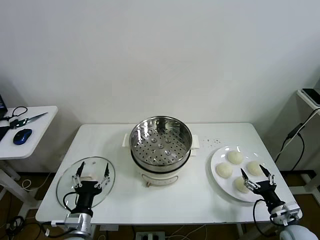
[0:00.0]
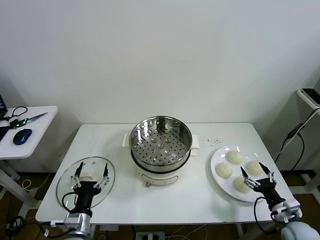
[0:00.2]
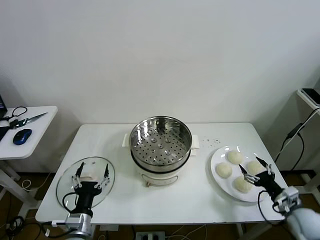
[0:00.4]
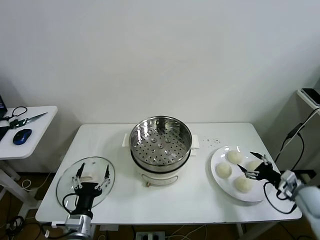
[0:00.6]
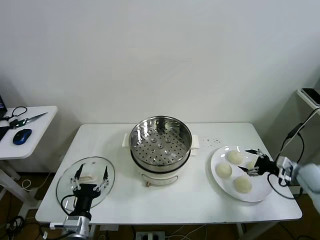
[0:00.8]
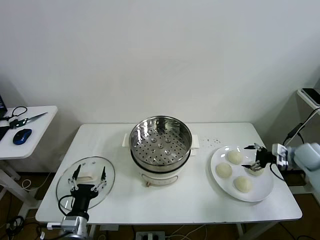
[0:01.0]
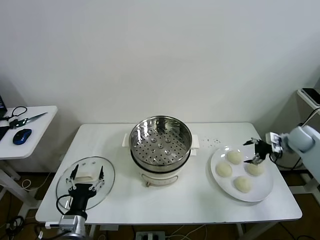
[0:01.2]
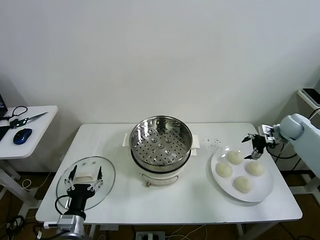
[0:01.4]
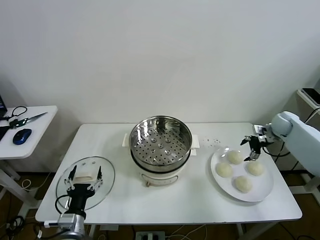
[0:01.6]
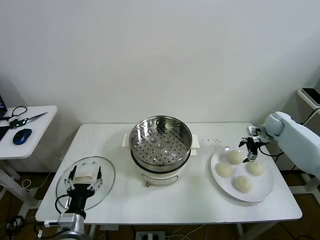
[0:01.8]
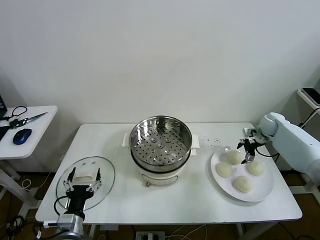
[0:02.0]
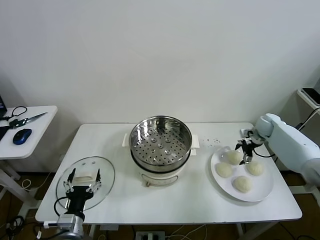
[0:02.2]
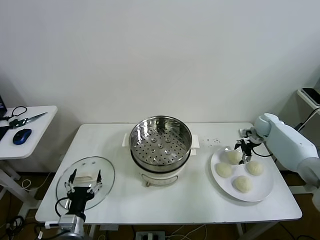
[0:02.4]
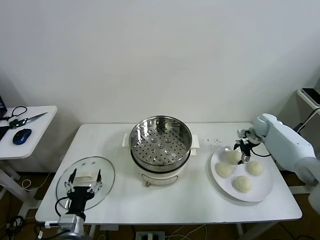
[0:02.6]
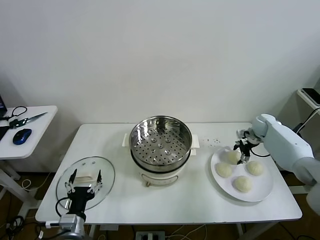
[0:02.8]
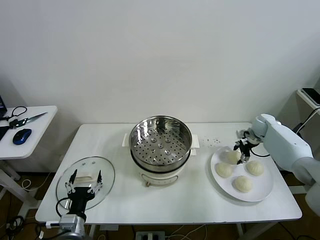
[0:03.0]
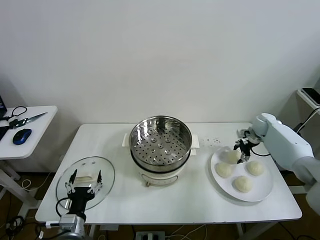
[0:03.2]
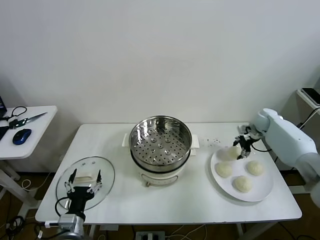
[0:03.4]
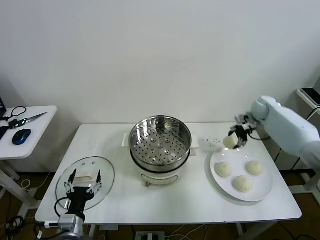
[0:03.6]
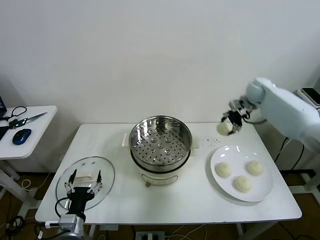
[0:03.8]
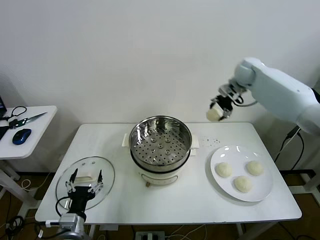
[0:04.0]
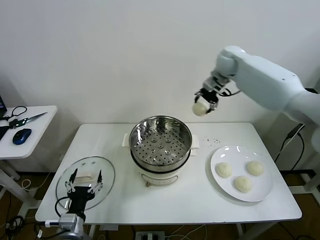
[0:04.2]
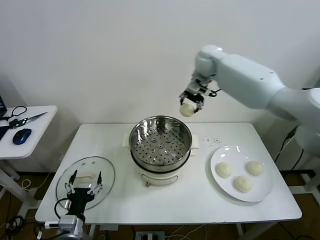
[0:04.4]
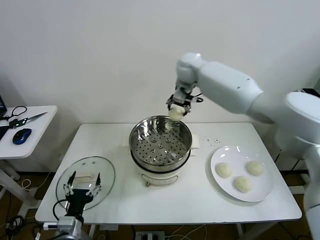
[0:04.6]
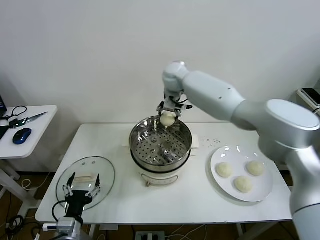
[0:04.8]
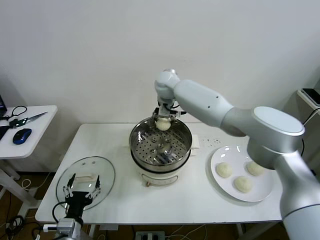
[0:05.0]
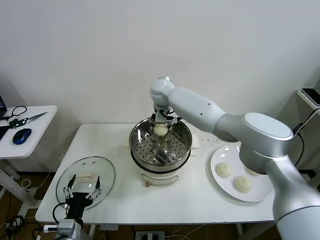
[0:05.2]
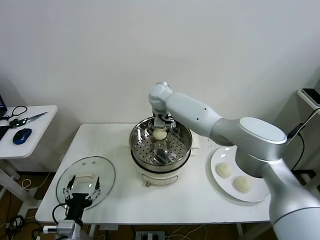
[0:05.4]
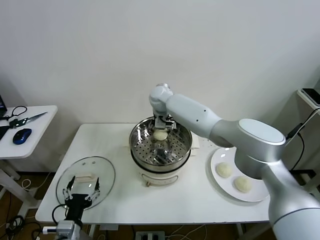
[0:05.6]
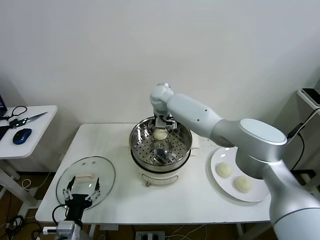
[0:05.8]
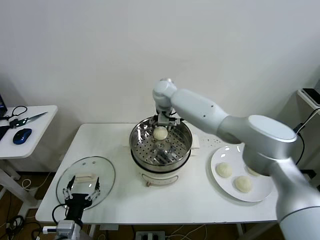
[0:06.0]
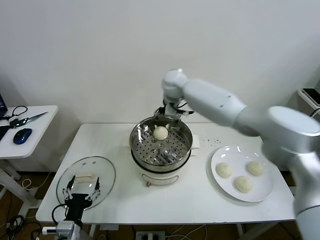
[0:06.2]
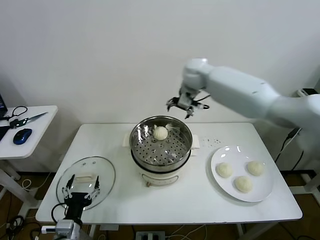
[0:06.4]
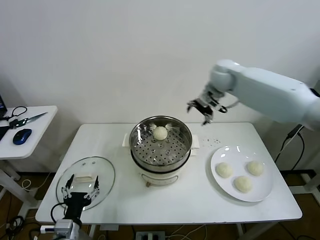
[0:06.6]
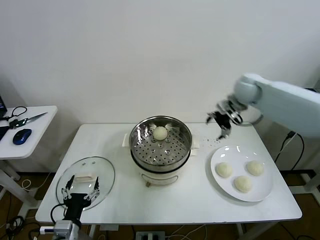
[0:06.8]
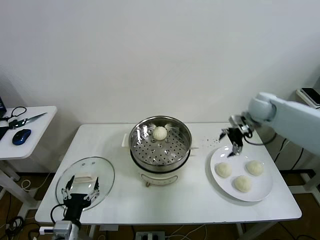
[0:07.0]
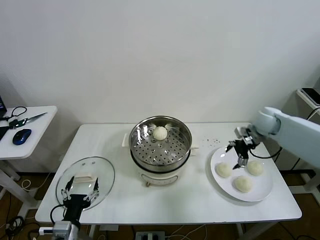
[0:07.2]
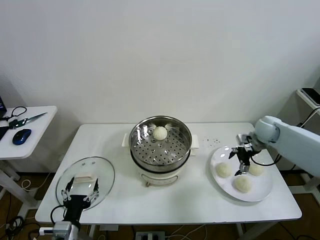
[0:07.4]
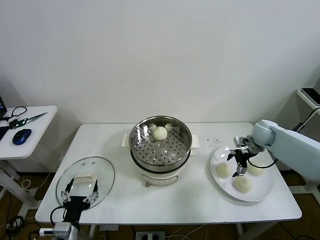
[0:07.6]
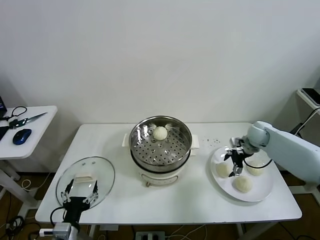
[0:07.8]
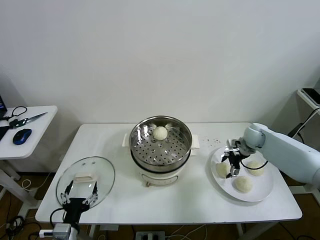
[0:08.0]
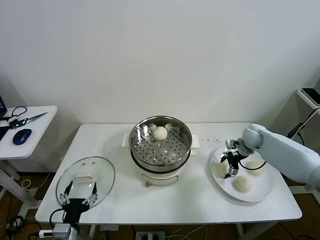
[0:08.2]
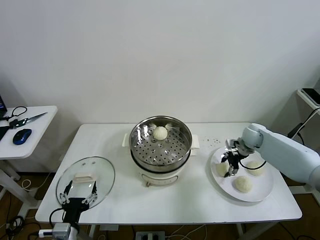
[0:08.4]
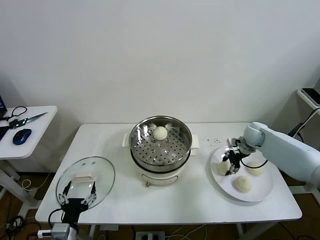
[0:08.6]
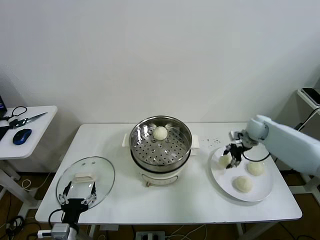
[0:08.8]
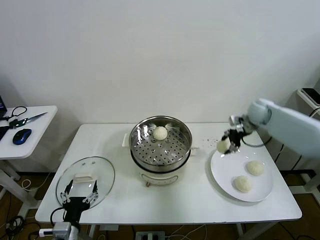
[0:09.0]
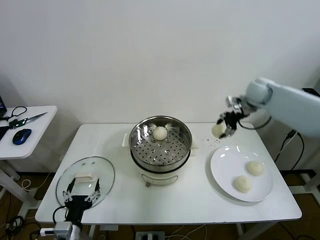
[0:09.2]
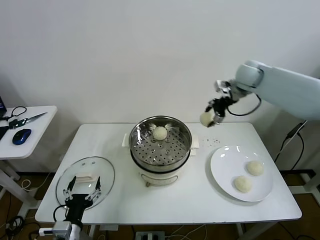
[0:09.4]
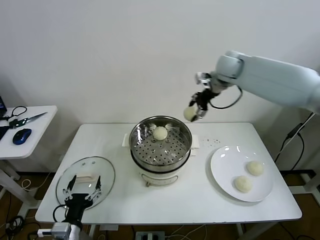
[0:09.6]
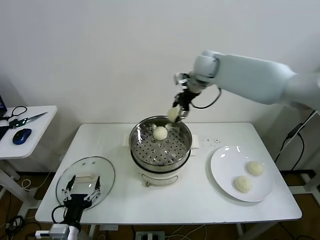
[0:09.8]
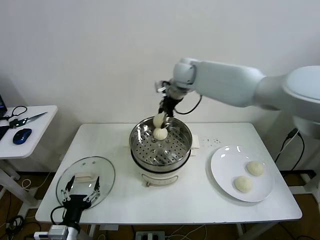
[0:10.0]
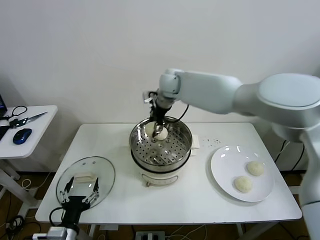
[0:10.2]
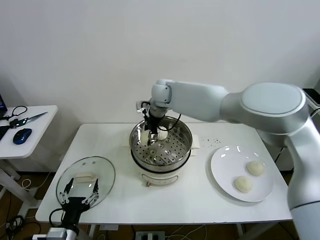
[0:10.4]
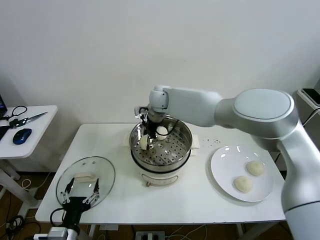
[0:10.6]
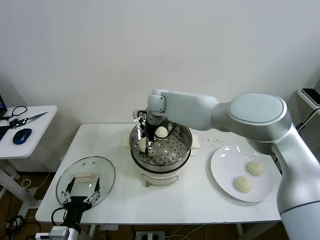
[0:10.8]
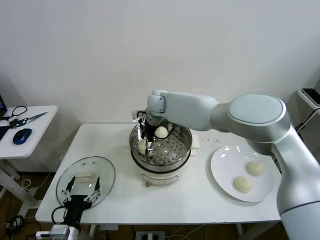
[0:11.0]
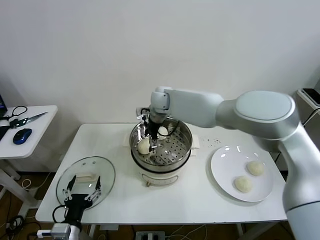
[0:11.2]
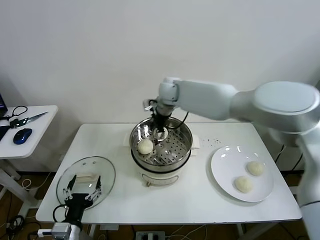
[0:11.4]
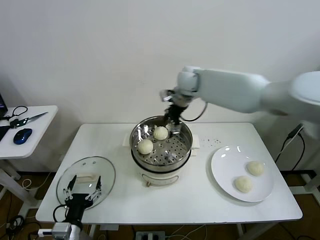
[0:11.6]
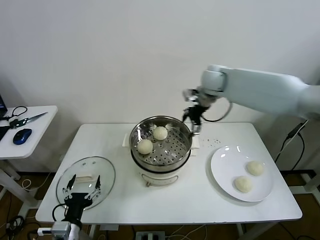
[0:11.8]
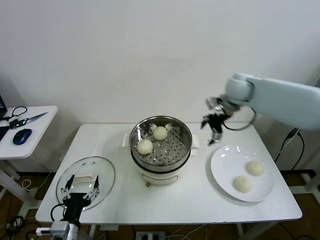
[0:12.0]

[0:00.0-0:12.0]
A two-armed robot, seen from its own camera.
Task of the whole recording: take steamed baozi put them in steamer then cover it.
Step, 0.0 to 2.8 s: Grasp the baozi in the plate with right gripper.
Step, 3.0 to 5.6 s: Place the baozi on the steamer with right gripper.
Step, 5.8 to 8.2 s: Grasp the baozi in the plate with right gripper.
Step, 8.6 to 11.0 s: Place the baozi on the steamer with right gripper.
1.6 to 3.0 s: The right gripper shifts by approximately 5 cm, and closes its fingers.
3.0 to 4.4 s: The right gripper moves to the left and upward, some 40 cm.
4.4 to 6.0 s: The right gripper heads to the left and downward, covering approximately 15 cm, and opens.
6.0 to 7.6 s: The right gripper heads to the right, covering roughly 40 cm.
7.6 to 9.0 s: The right gripper is displaced upward by about 10 cm, and closes.
9.0 to 10.4 s: The right gripper is displaced to the left by some 35 cm.
10.4 to 12.0 s: The right gripper travels to the right by roughly 25 cm, and opens its fingers.

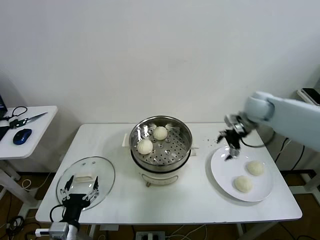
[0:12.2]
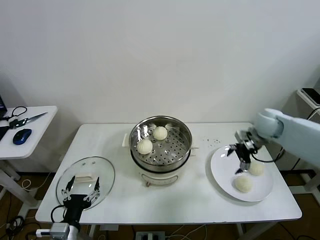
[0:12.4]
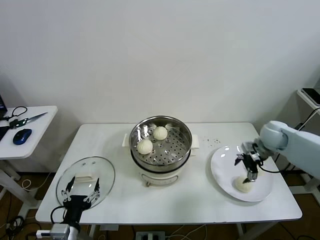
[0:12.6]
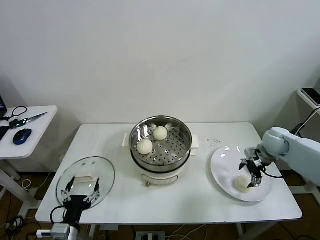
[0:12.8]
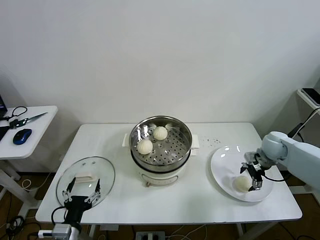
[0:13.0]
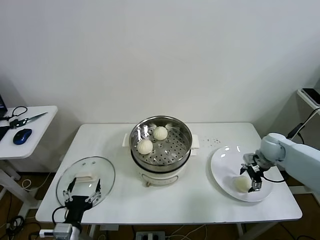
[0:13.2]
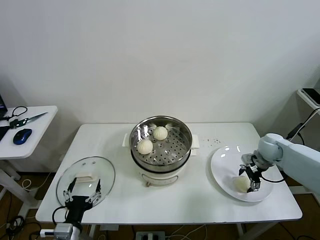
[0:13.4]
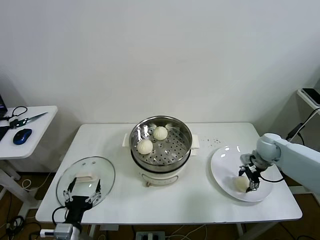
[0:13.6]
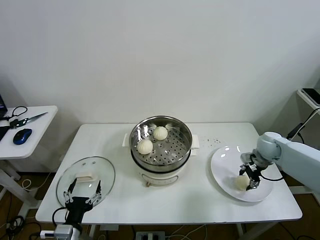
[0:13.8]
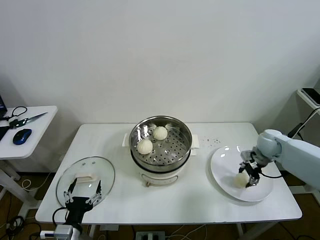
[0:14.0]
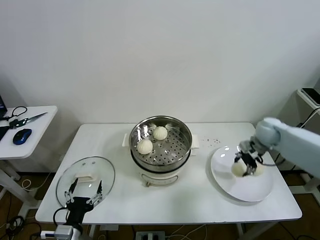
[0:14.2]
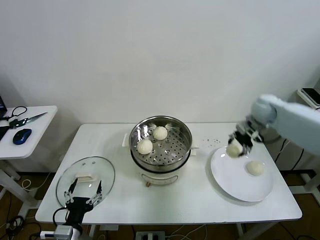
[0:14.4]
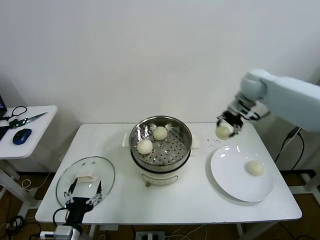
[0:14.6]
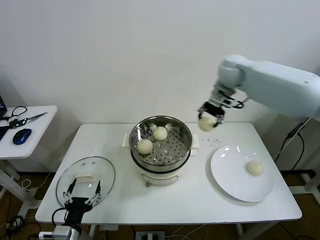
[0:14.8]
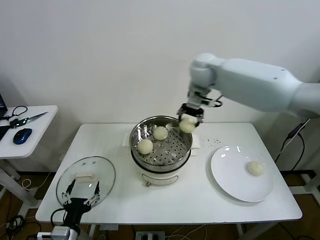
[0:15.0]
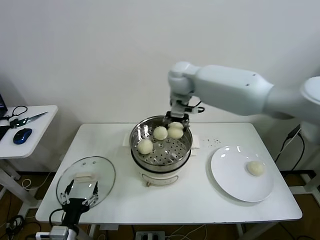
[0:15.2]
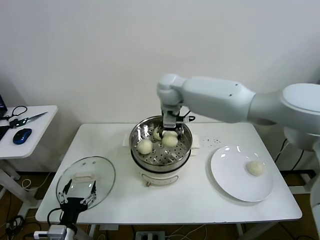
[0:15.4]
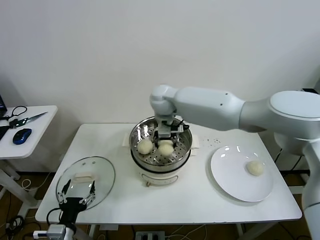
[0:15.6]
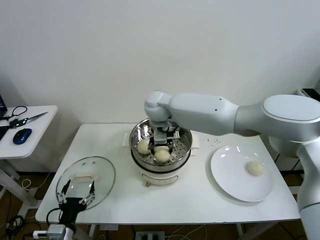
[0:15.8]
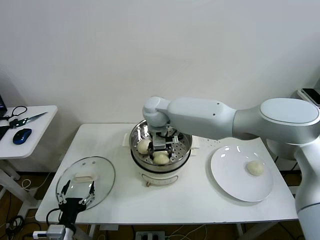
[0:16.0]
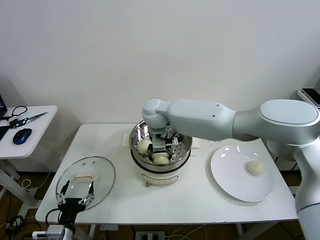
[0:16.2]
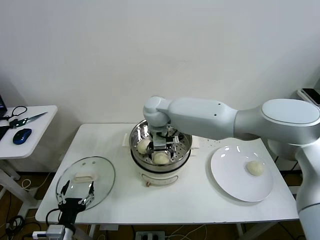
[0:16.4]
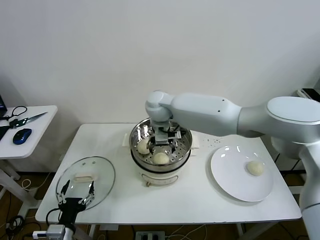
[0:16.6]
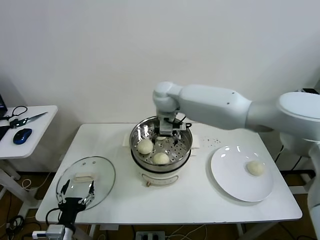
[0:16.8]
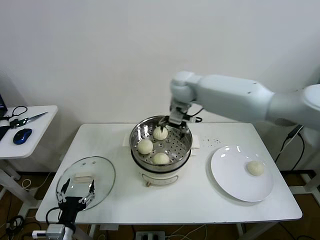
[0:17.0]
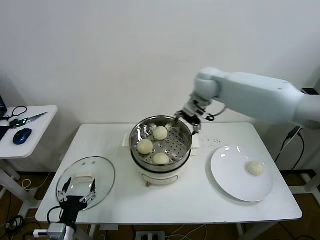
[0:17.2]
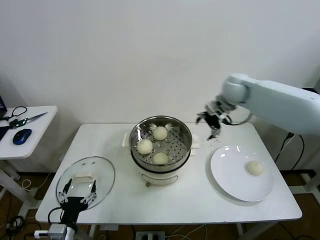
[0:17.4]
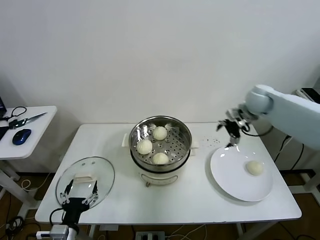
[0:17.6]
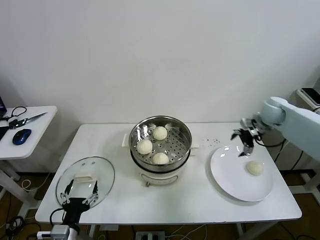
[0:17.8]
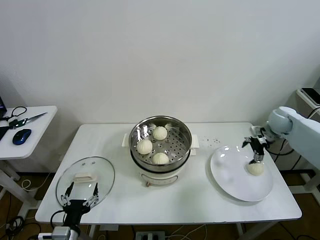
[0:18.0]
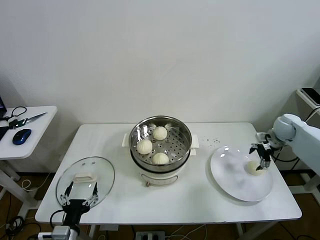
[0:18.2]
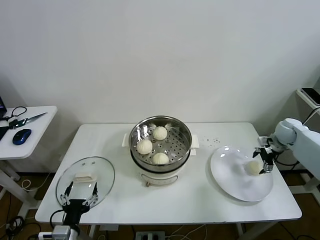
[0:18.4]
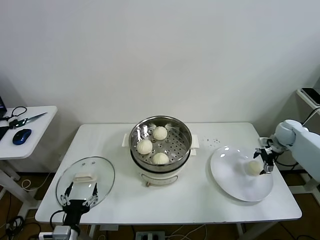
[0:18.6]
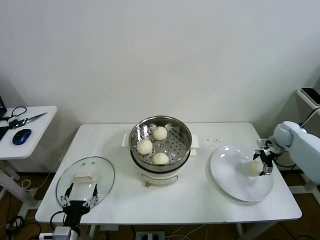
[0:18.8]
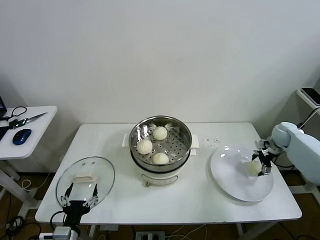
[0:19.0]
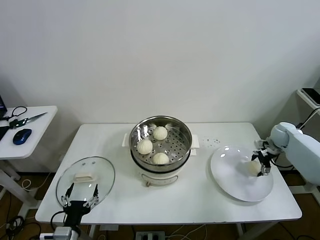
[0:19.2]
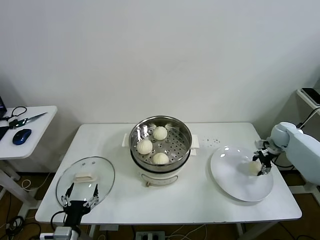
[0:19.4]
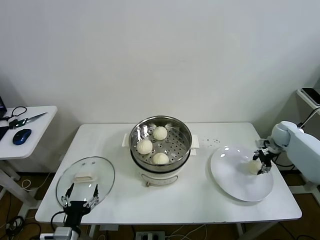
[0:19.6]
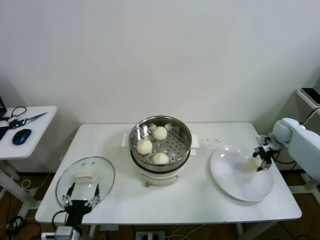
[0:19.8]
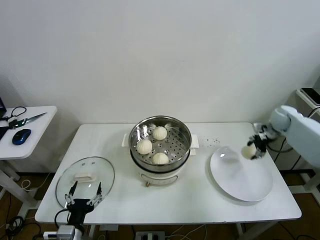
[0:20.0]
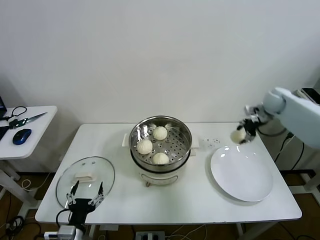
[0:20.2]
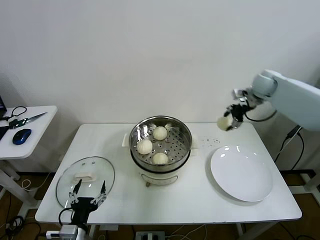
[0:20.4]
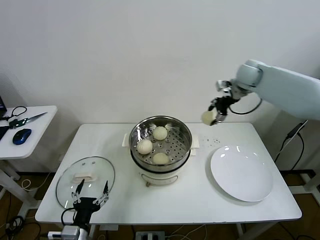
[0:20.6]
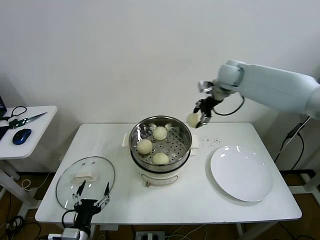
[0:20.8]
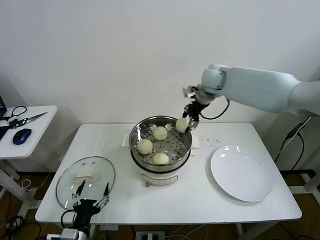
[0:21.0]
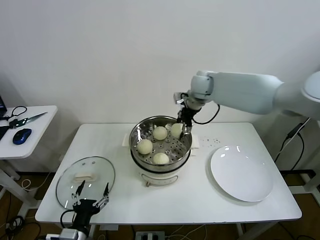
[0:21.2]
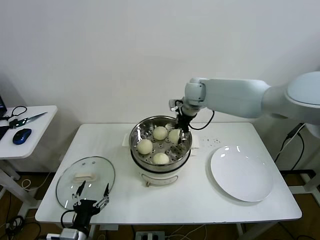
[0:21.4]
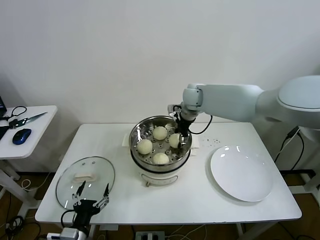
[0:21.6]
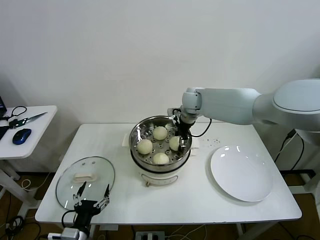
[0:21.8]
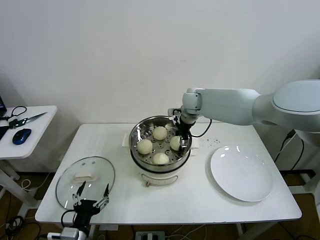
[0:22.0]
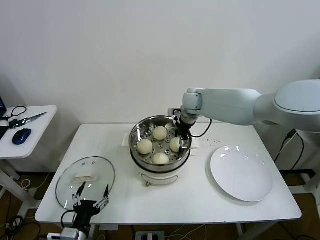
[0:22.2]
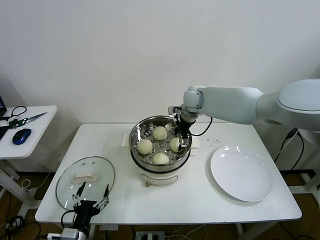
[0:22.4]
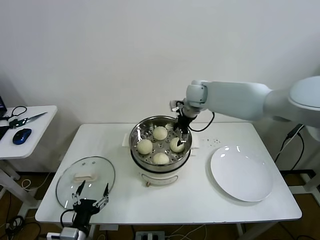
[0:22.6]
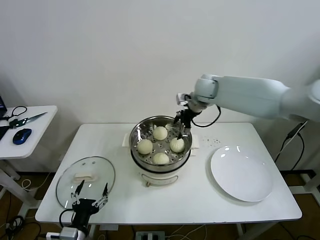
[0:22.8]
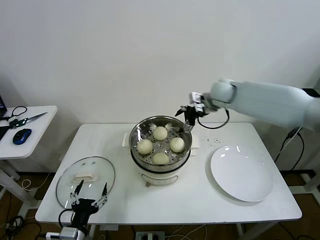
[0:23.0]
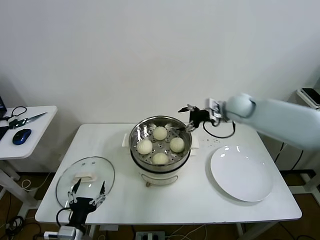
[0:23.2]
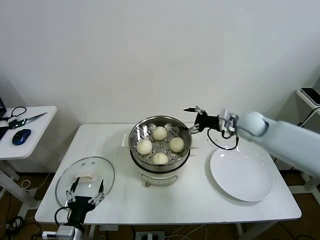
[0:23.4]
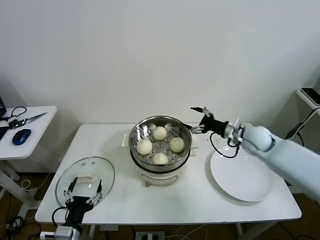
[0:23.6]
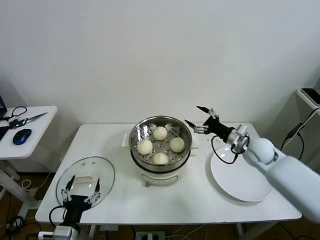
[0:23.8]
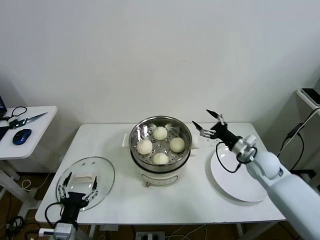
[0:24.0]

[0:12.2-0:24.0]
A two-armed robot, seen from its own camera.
Task of the whole recording: take steamed baozi put them in steamer then cover it.
Step, 12.2 to 13.6 s: Grasp the baozi in the plate with right gripper.
Step, 13.8 to 16.4 s: Place the baozi on the steamer with right gripper.
Step, 16.6 to 19.2 s: Grasp the baozi in the plate with right gripper.
Step, 19.4 to 22.2 s: Place the baozi on the steamer with right gripper.
12.2 to 13.6 s: The right gripper goes about 15 cm downward and to the right, and closes.
13.6 to 15.2 s: The right gripper heads to the left and upward, covering roughly 40 cm.
15.2 to 16.6 s: The right gripper is displaced downward and to the left by about 10 cm, and opens.
16.6 to 18.2 s: The right gripper moves to the right, roughly 50 cm.
18.2 to 19.6 s: The right gripper goes roughly 5 cm downward, and closes up.
19.6 to 21.0 s: The right gripper travels to the left and upward by approximately 40 cm.
21.0 to 22.6 s: The right gripper goes approximately 10 cm downward and to the left, and opens.
22.6 to 24.0 s: The right gripper is displaced to the right, backward and downward by about 30 cm.
